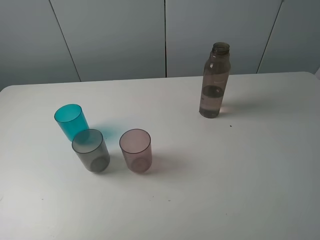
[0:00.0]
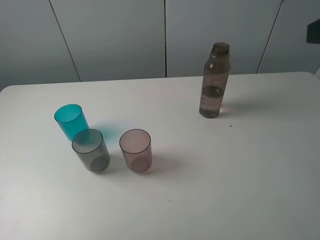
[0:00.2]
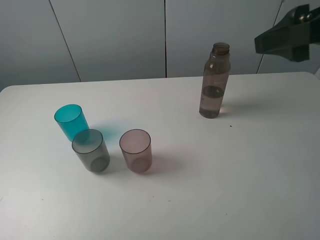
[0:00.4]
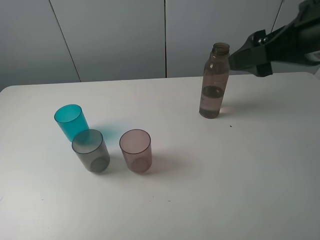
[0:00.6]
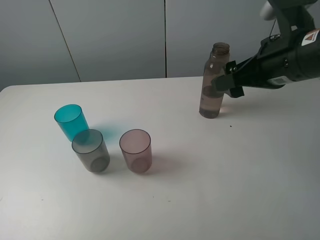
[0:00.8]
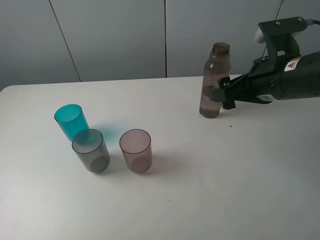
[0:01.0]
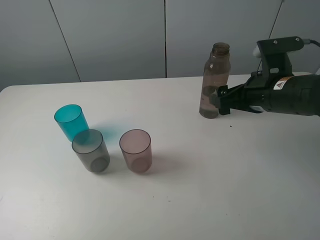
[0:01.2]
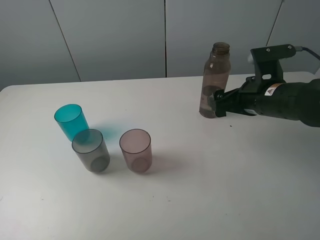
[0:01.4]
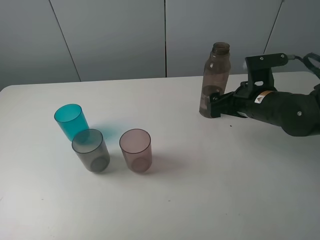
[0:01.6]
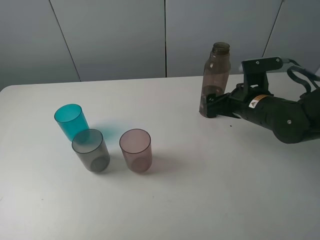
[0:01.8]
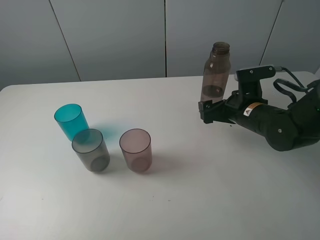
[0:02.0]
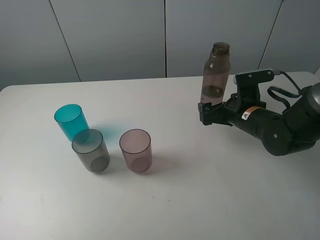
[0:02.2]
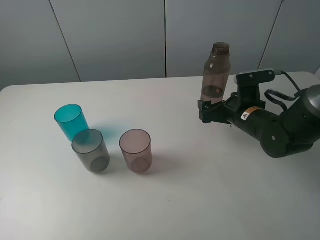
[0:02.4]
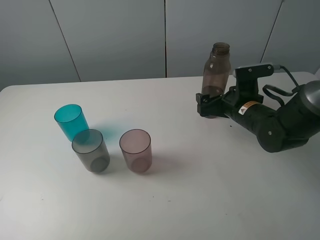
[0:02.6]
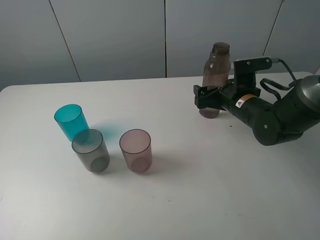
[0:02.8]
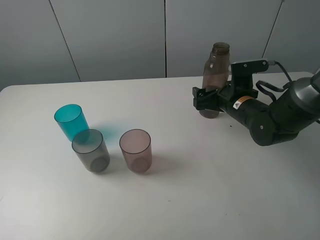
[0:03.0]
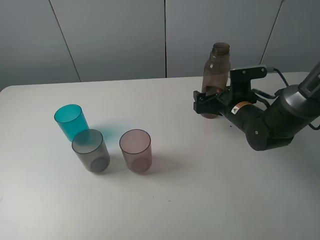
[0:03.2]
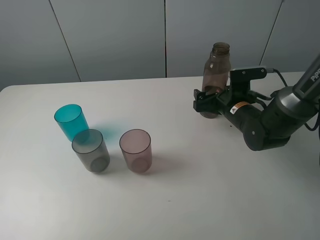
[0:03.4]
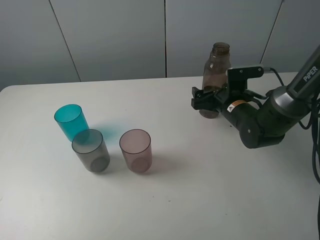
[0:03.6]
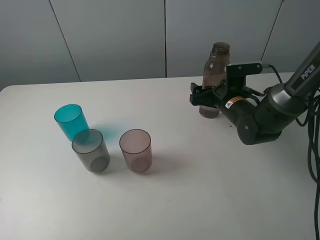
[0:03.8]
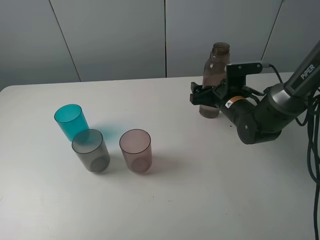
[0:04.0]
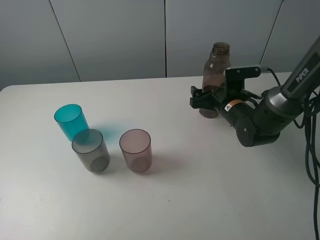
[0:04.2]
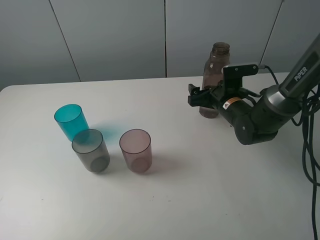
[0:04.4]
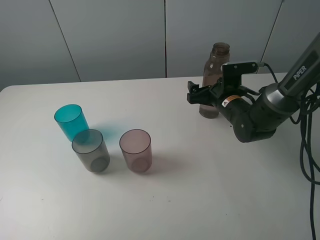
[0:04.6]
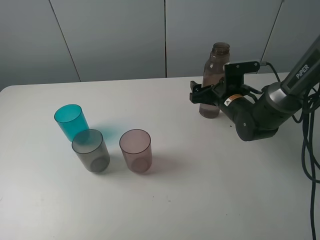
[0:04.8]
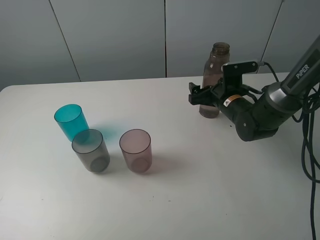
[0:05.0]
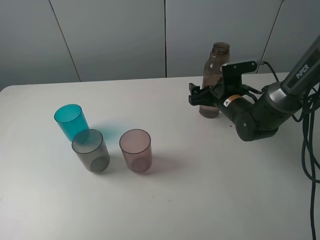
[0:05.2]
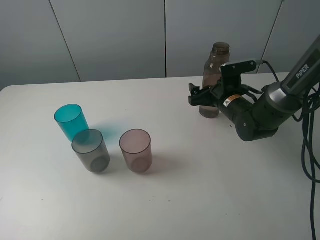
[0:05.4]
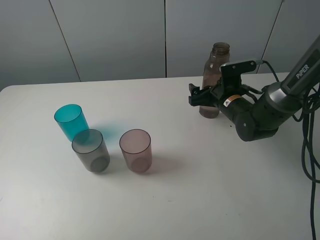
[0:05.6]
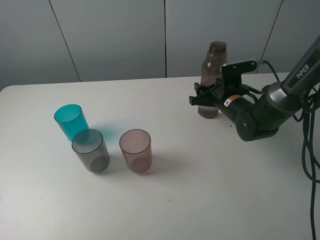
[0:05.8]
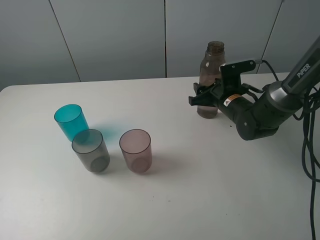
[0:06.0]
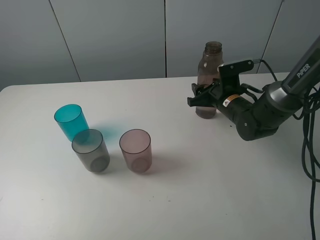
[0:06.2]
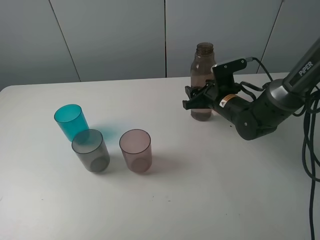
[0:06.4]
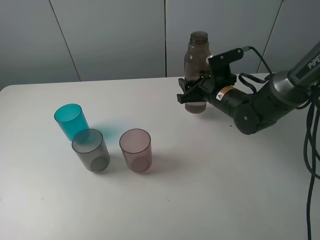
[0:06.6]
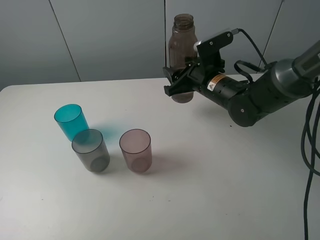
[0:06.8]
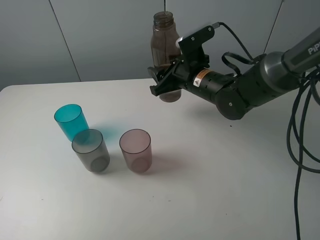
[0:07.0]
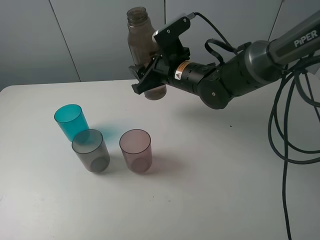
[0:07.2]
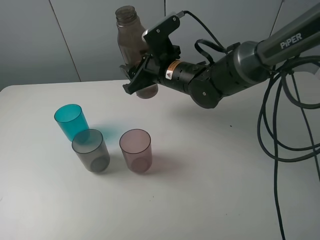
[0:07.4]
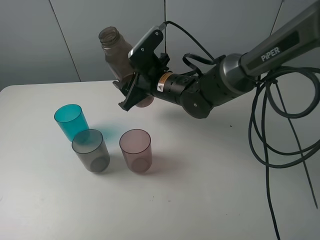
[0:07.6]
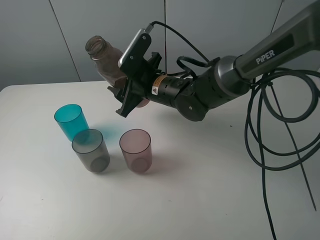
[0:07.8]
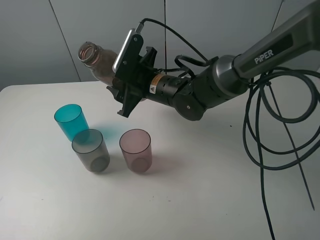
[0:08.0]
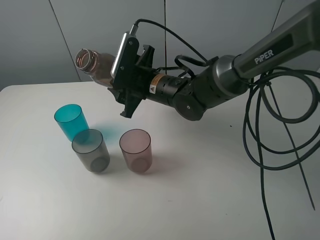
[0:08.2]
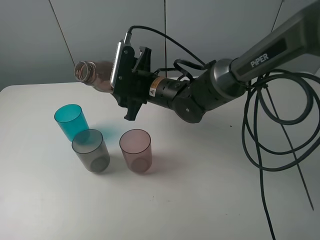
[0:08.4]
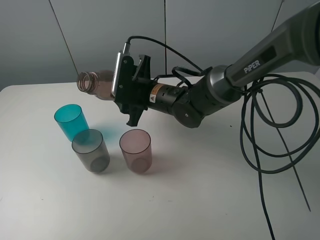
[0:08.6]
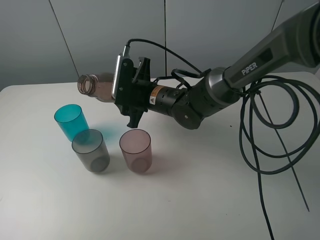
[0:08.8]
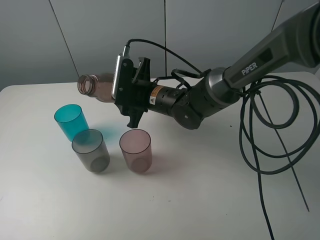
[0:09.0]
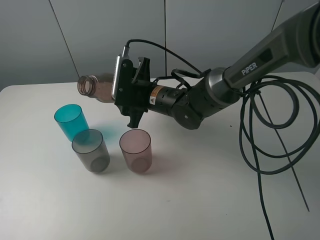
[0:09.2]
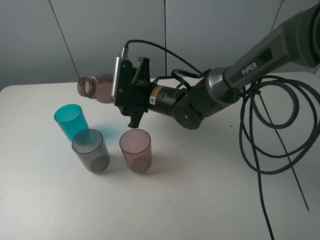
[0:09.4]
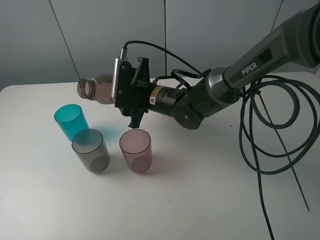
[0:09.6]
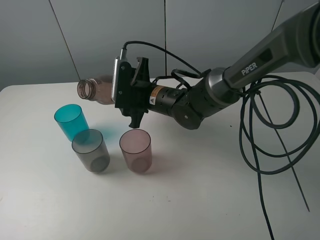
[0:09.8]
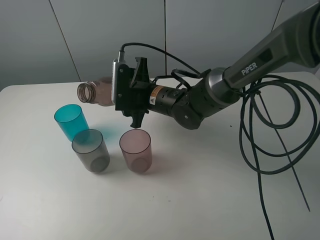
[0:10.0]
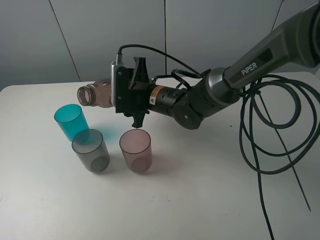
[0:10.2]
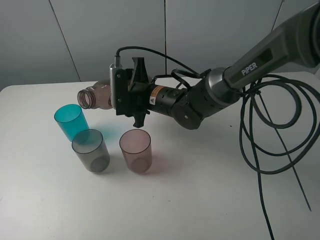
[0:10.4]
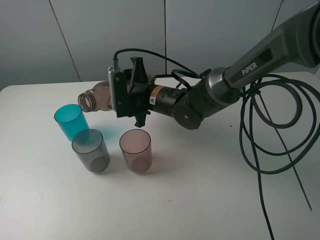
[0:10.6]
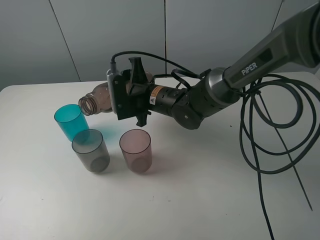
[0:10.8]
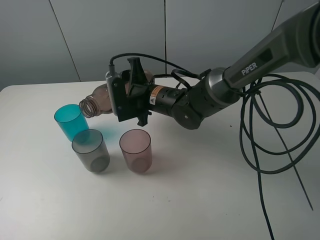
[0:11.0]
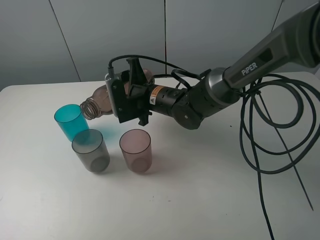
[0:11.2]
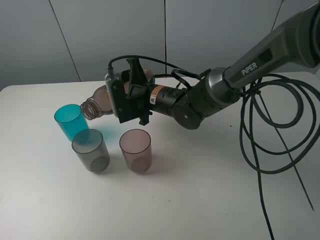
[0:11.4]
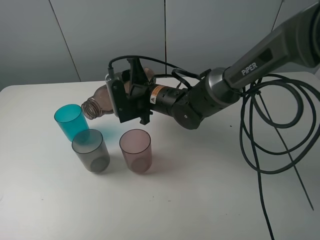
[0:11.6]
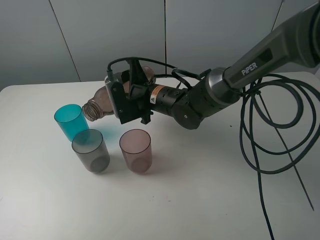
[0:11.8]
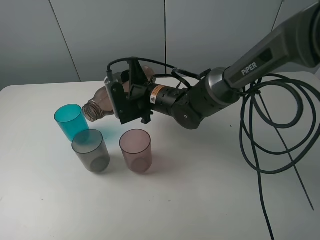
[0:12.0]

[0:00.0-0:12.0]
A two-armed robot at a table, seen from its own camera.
Task of the whole recording: pick up the bottle filled with water and pour water into the middle cup of the three cups.
Step, 0:00.0 to 0:06.4: Grasp the brown bottle with the right gripper.
0:00.0 to 0:01.6: The right gripper goes about 25 cm downward and forward.
0:01.6 to 0:03.0: The right gripper moves some 5 cm.
0:03.0 to 0:04.4: There are only small adjustments of the grippers.
0:04.4 to 0:06.0: The right gripper closes up.
0:06.0 to 0:07.6: The right gripper moves to the left and upward, about 15 cm.
0:09.0 to 0:10.4: The grippers move only a little.
0:10.4 to 0:12.0: There are only small adjustments of the grippers.

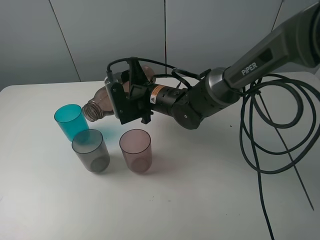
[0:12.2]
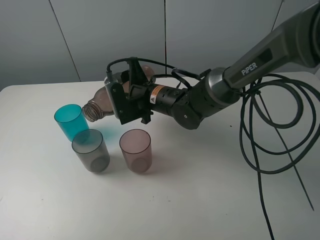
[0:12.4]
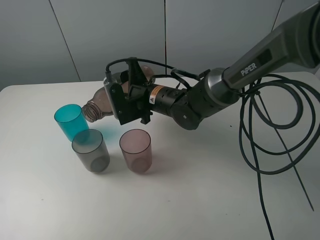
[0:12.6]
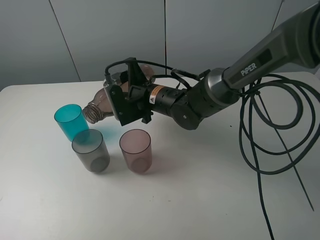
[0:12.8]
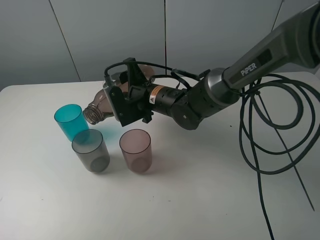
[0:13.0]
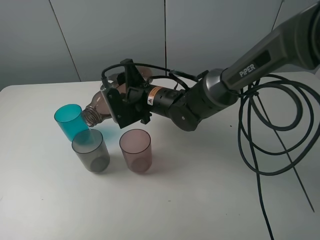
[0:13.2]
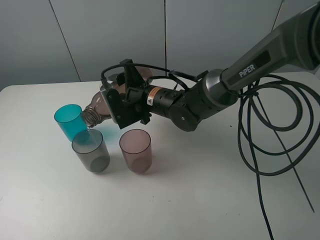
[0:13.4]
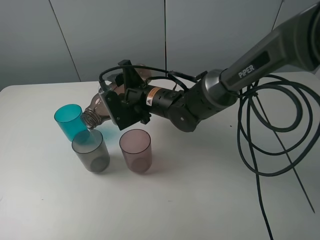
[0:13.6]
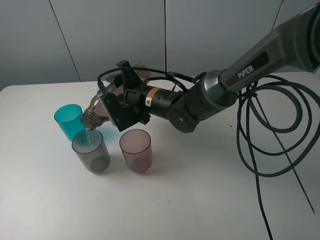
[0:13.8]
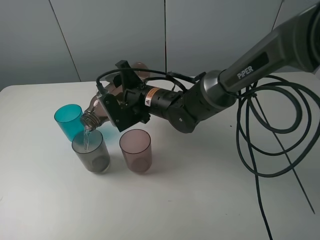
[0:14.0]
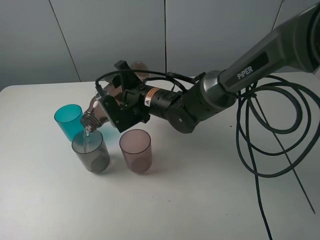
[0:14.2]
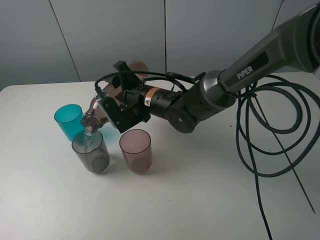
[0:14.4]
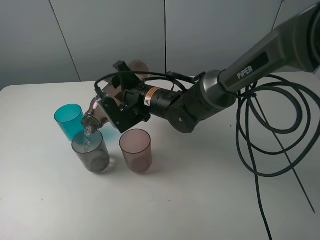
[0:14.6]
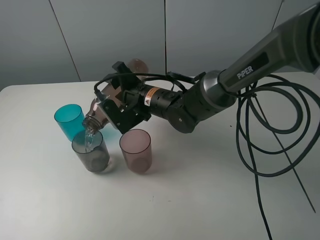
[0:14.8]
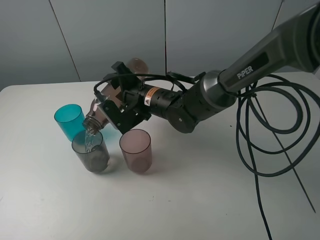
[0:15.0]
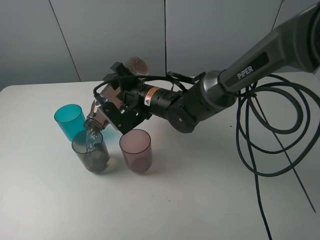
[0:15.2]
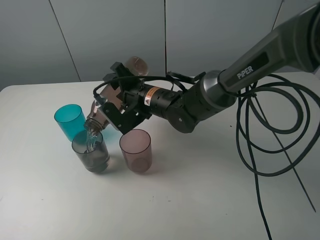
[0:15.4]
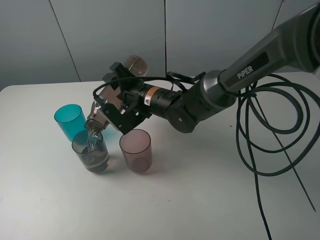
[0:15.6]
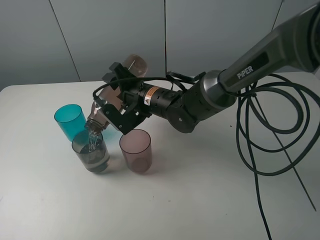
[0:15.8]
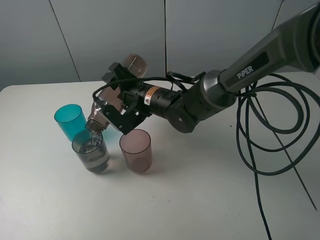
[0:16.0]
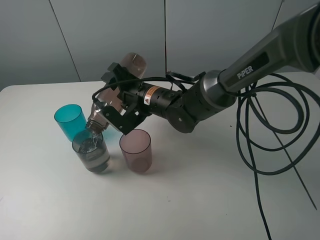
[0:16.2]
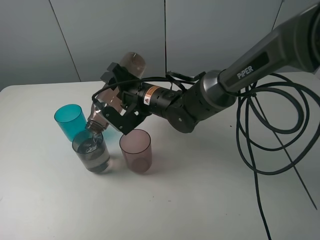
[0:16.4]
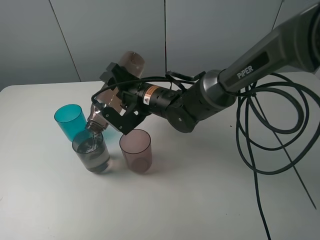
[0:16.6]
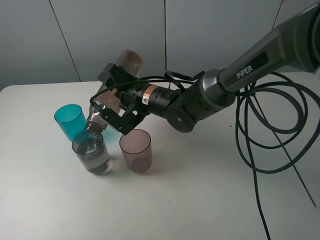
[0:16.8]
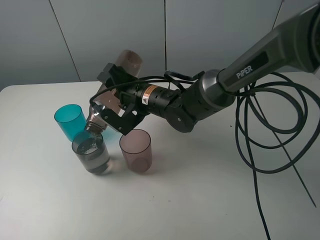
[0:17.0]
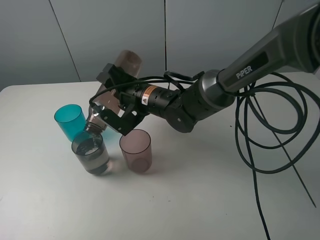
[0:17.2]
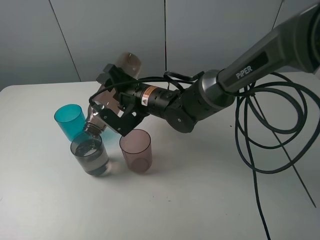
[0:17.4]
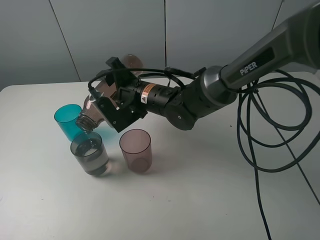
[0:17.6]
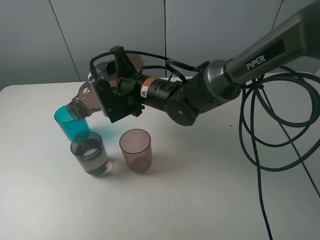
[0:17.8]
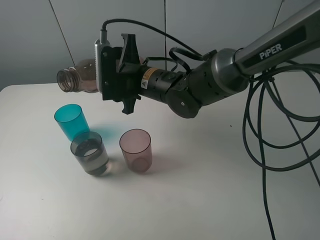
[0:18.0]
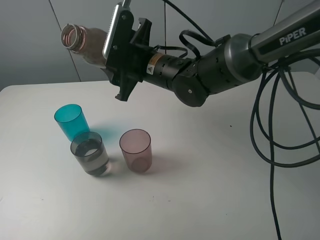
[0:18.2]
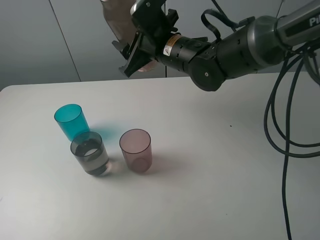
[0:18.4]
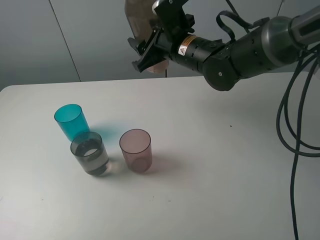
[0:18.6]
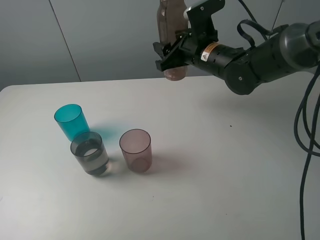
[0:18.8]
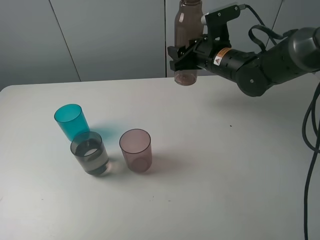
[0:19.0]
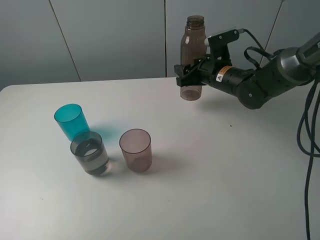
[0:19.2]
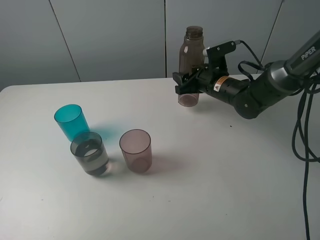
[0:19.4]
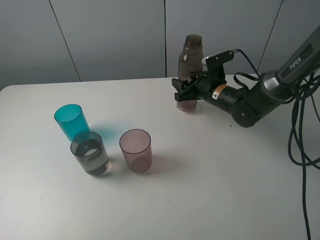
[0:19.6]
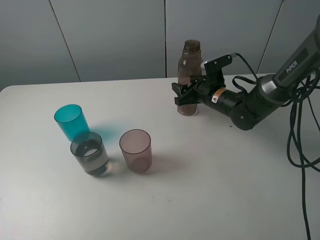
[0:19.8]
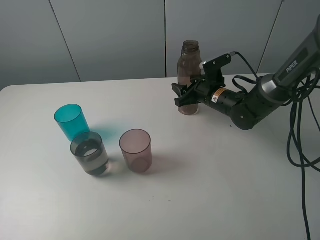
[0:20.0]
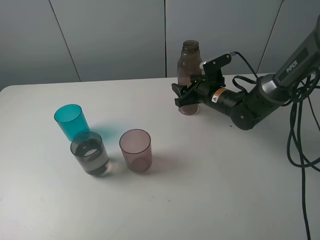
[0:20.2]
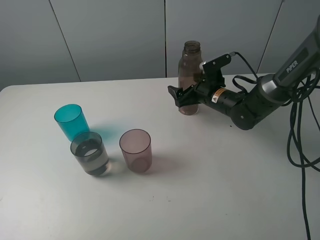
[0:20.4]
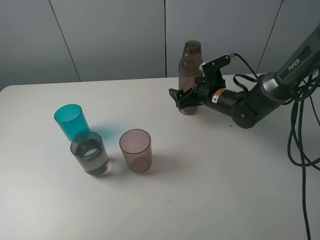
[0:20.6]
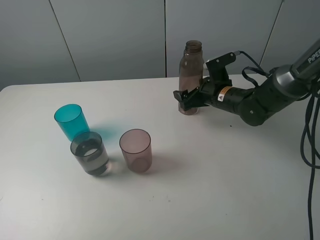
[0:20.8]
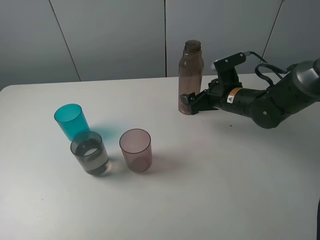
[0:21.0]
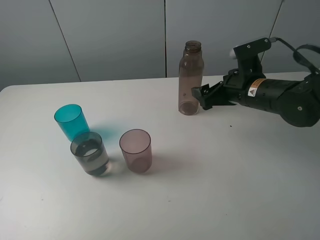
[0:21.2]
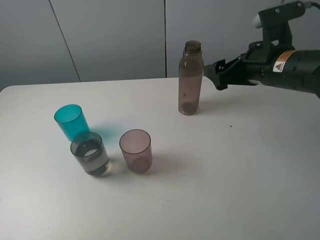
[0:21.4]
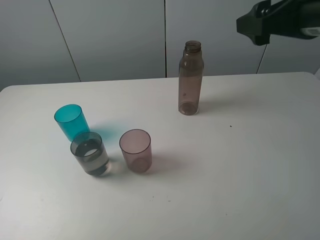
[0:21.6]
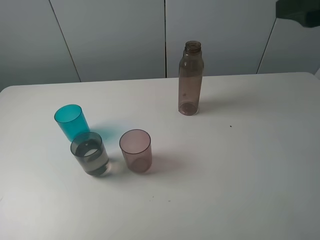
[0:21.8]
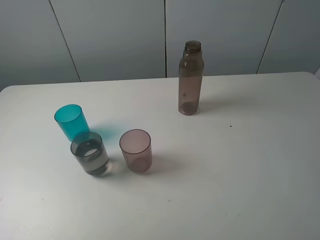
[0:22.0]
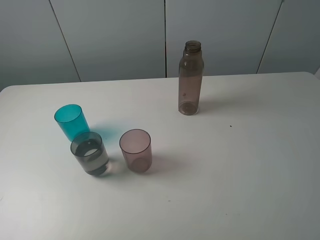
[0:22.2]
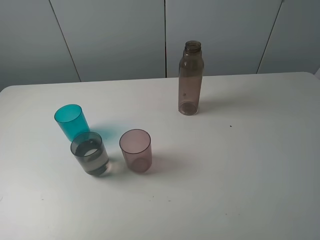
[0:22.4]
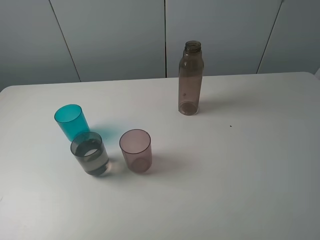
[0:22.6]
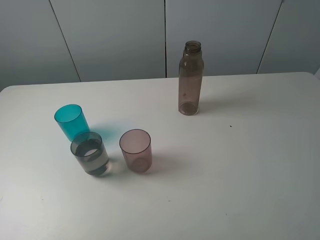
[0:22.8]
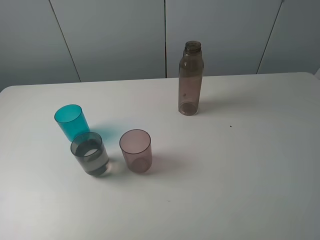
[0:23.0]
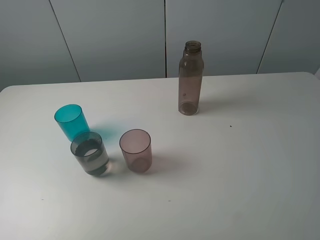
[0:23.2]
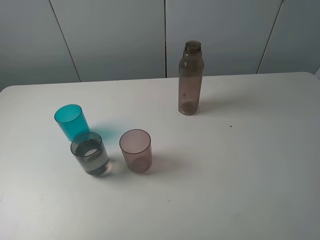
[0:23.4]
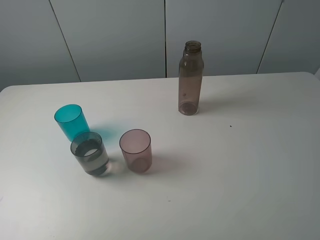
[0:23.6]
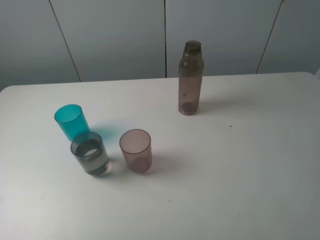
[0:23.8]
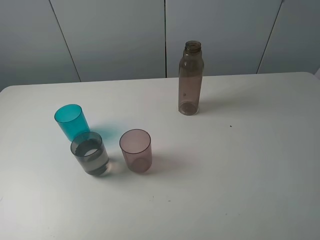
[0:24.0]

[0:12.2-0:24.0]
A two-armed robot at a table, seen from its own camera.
Task of the whole recording: pick up the bottle filled with water and pour water into the middle cup of the three cups.
Step, 0:13.2 to 0:21.6: Place the brown bottle with the right gripper.
0:12.2 to 0:15.2: The grippers stay close to where they were, moving slightly.
0:15.2 to 0:16.6: There are only small adjustments of the grippers.
0:16.6 to 0:18.2: The right gripper travels upward by roughly 10 cm.
0:18.2 to 0:19.6: The right gripper shifts roughly 20 cm to the right and downward.
0:19.6 to 0:21.0: The right gripper is displaced backward by approximately 5 cm, and opens up.
0:21.0 to 0:22.6: The right gripper travels backward and upward by about 40 cm.
